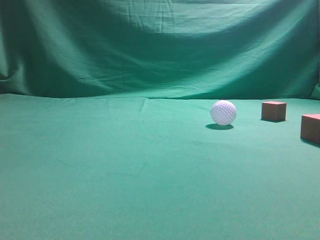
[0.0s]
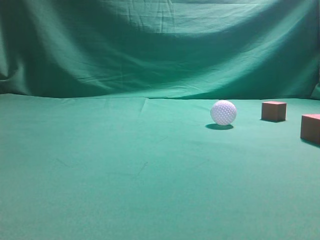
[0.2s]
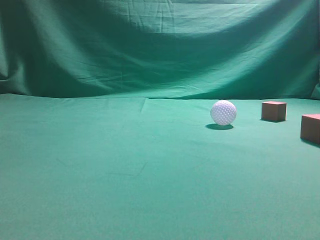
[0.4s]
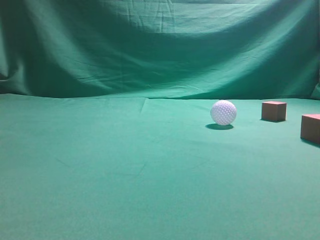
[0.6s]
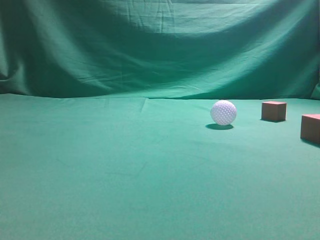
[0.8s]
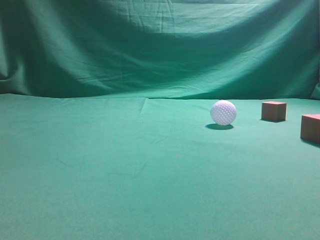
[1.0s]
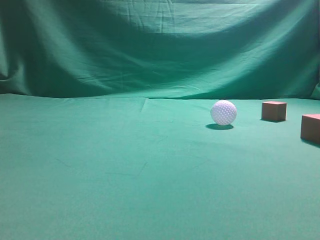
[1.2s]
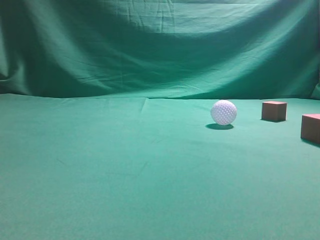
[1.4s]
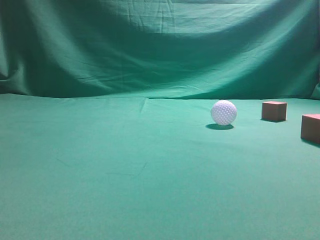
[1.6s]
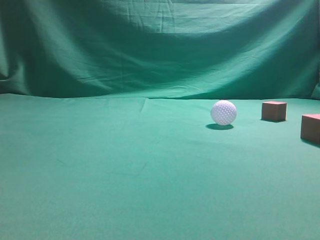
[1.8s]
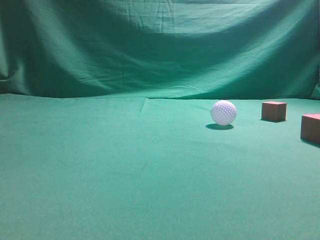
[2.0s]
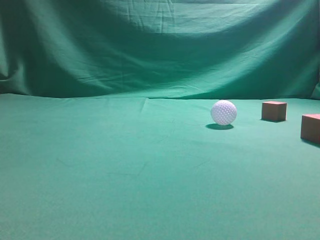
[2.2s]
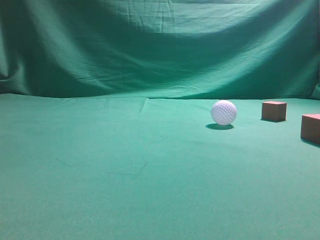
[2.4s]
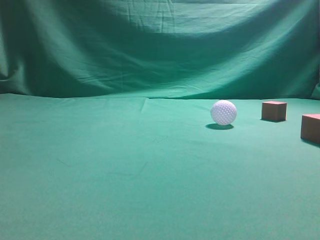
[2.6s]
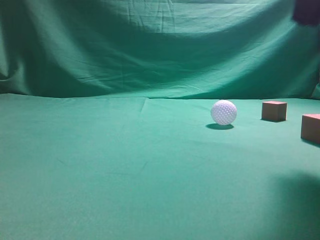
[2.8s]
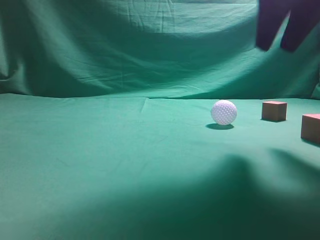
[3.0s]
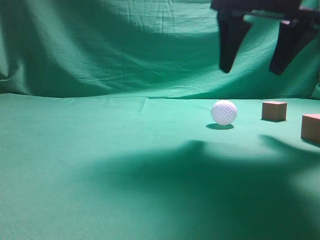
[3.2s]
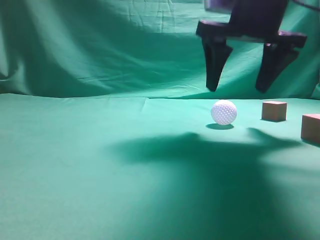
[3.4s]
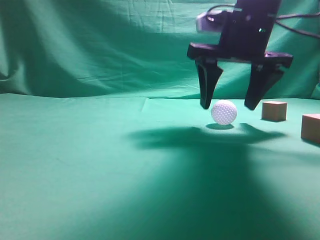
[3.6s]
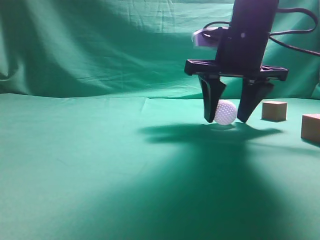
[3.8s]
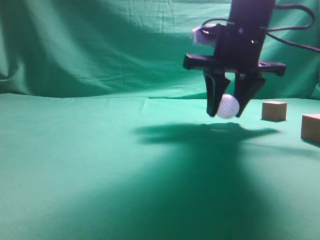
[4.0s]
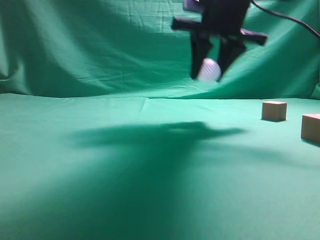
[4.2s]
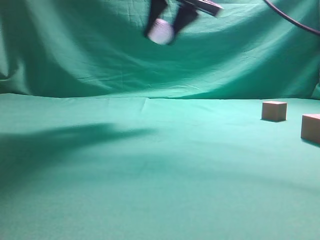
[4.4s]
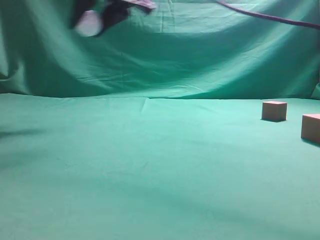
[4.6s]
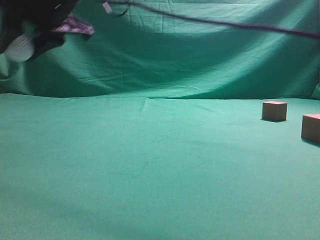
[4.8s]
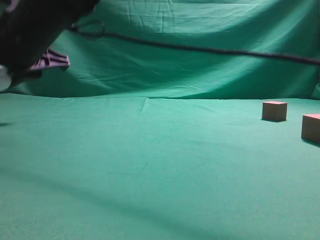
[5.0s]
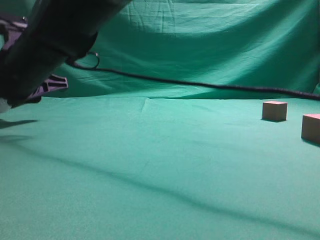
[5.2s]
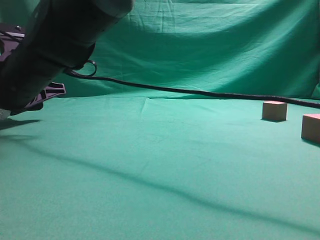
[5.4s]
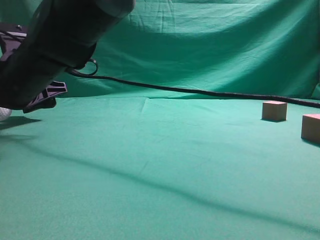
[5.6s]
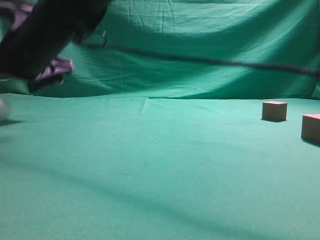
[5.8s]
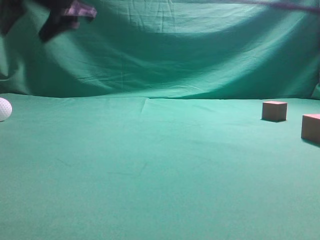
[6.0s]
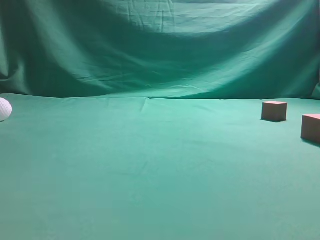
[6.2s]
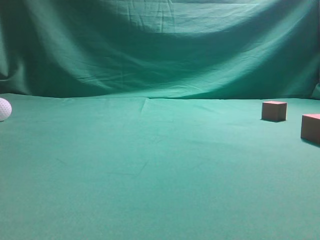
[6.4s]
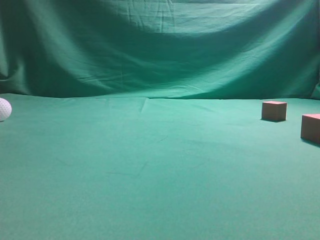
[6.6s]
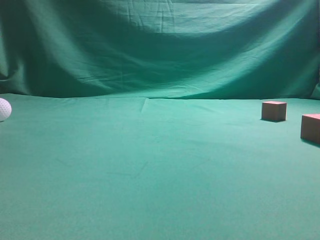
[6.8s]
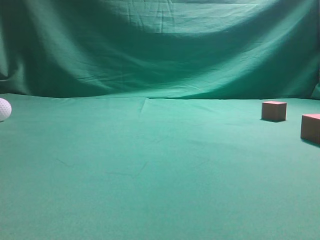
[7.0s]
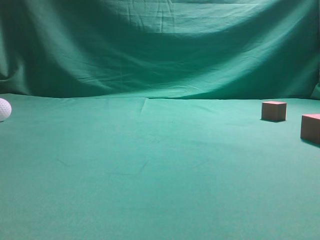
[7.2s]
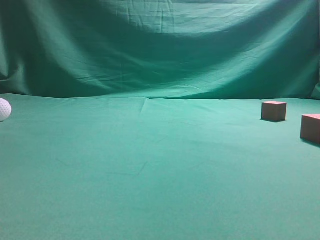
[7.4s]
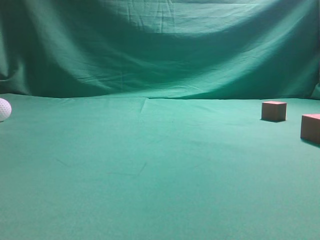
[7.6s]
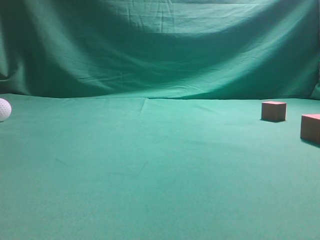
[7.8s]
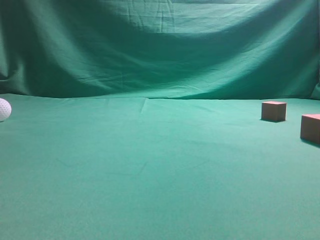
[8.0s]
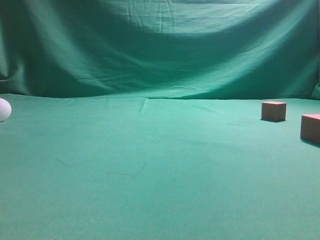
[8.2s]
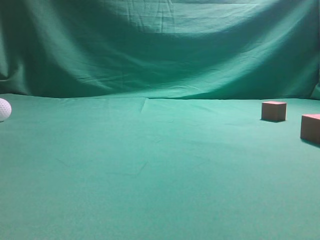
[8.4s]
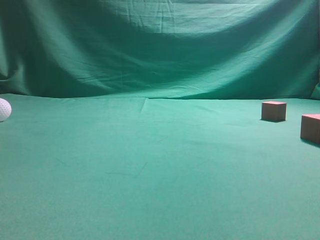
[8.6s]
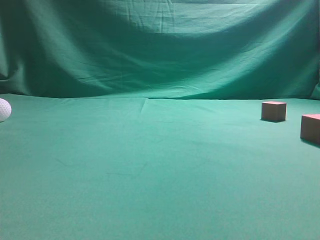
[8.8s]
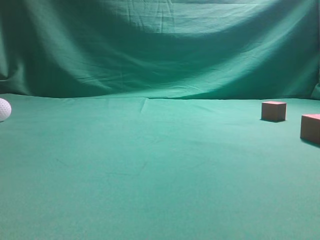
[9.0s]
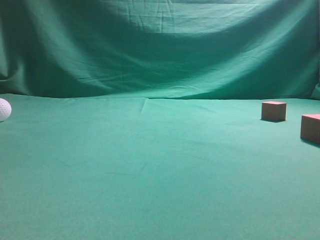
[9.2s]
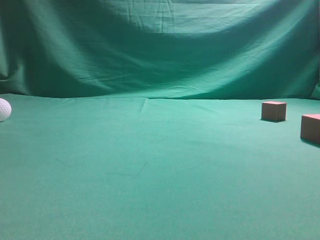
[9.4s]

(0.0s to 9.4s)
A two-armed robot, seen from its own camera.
Step, 0.0s - 4.0s: Grasp the spherical object on the right side.
1.6s - 3.2s: The right gripper heads forward and to the left, covering approximately 30 cm, and opens.
3.2s - 4.8s: The right gripper shifts about 30 cm to the left, and closes.
4.8s - 6.2s: The right gripper heads upward and to the right, covering roughly 15 cm, and closes its fingers.
